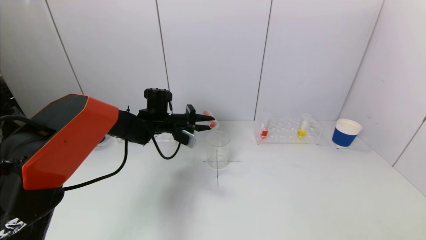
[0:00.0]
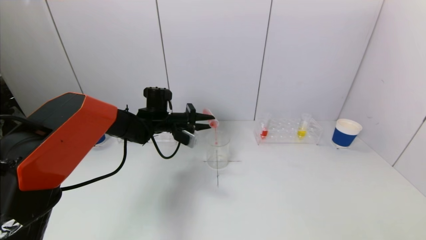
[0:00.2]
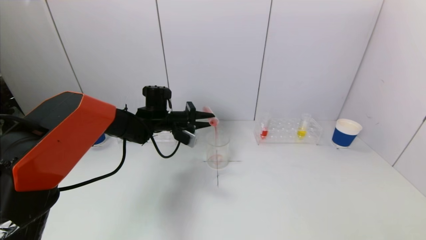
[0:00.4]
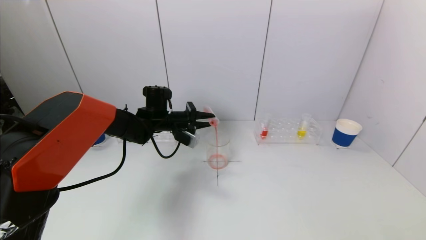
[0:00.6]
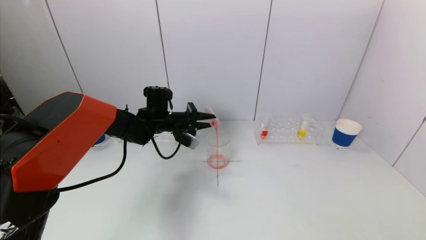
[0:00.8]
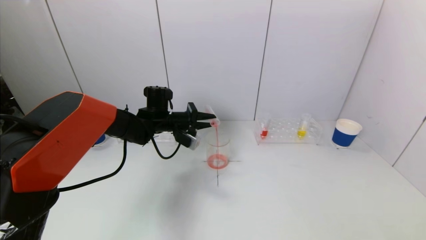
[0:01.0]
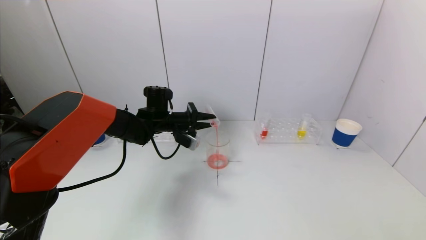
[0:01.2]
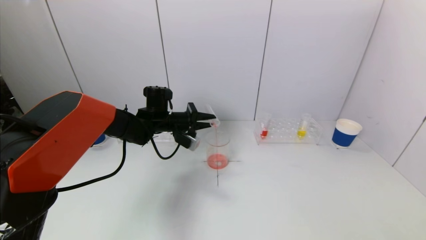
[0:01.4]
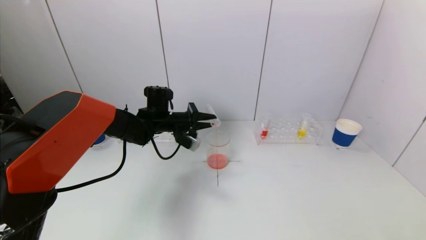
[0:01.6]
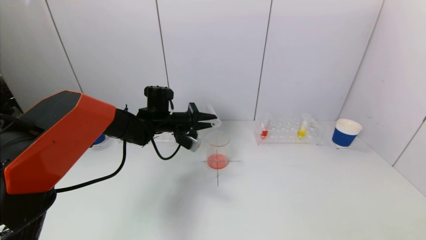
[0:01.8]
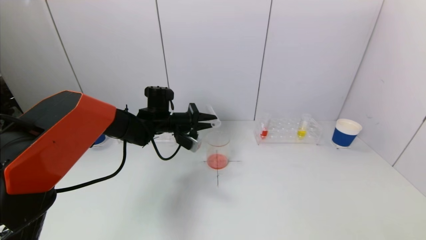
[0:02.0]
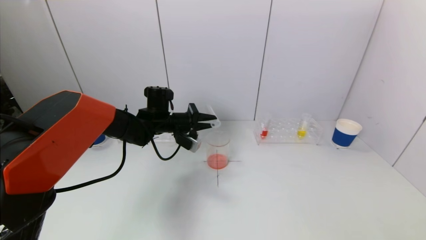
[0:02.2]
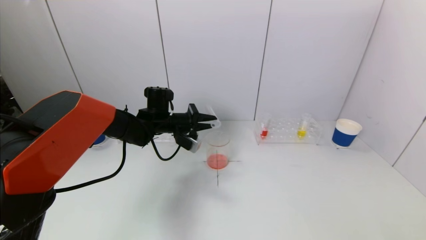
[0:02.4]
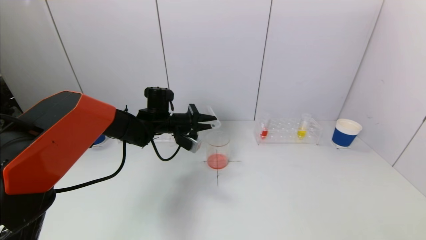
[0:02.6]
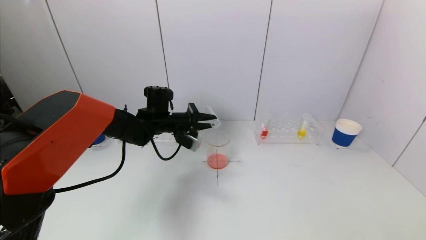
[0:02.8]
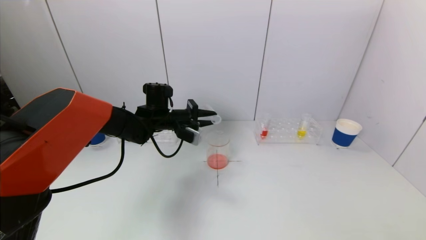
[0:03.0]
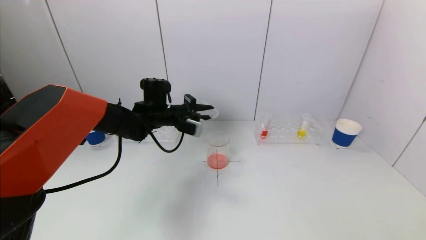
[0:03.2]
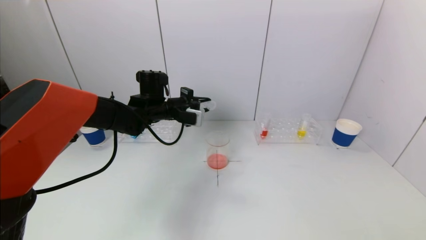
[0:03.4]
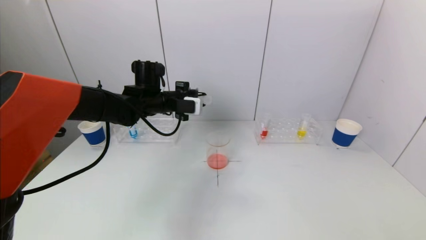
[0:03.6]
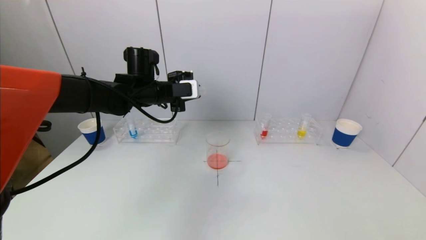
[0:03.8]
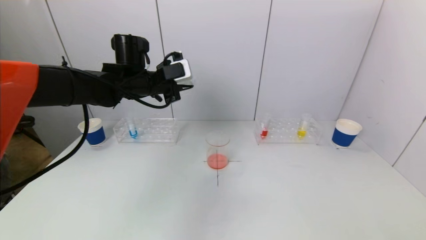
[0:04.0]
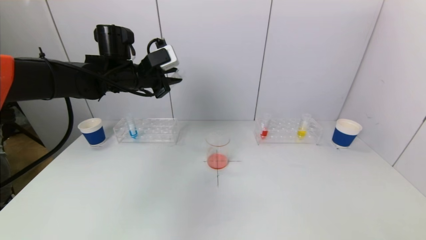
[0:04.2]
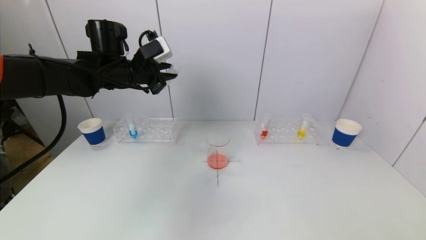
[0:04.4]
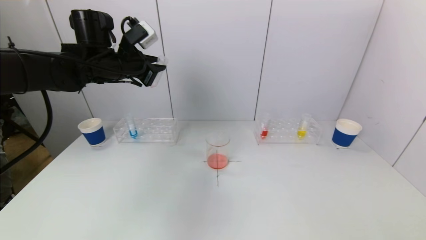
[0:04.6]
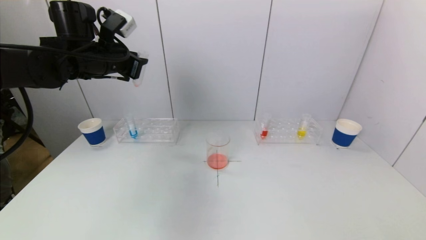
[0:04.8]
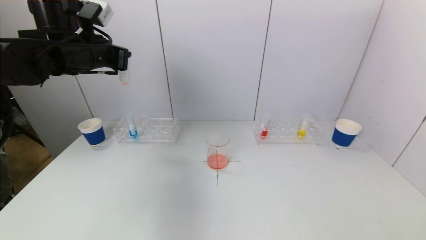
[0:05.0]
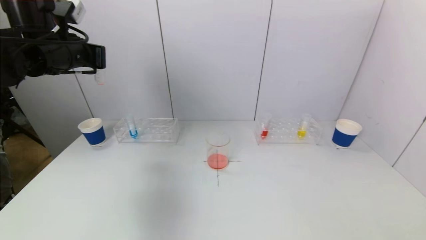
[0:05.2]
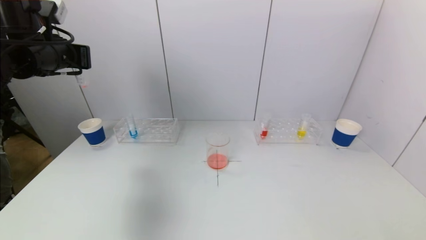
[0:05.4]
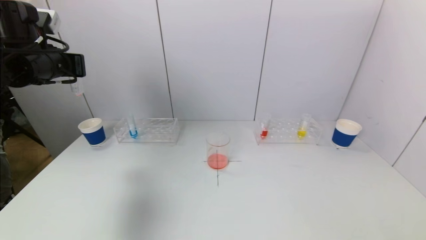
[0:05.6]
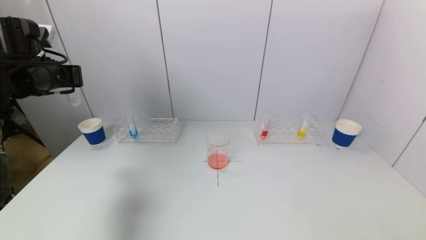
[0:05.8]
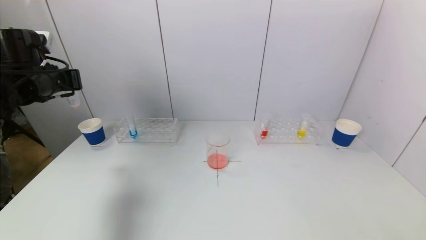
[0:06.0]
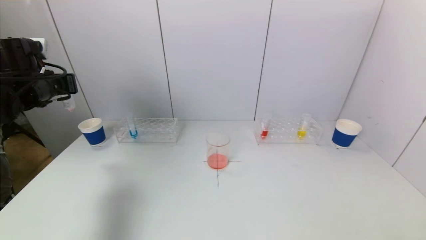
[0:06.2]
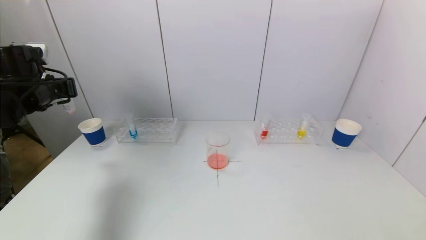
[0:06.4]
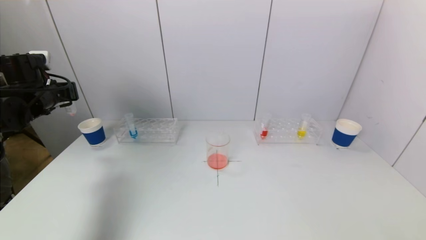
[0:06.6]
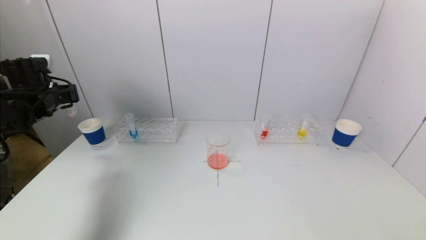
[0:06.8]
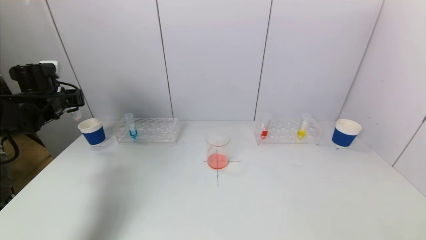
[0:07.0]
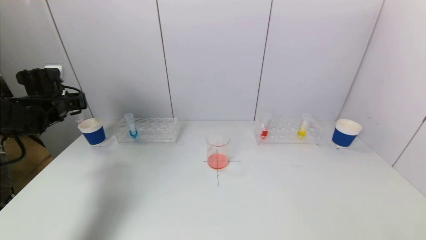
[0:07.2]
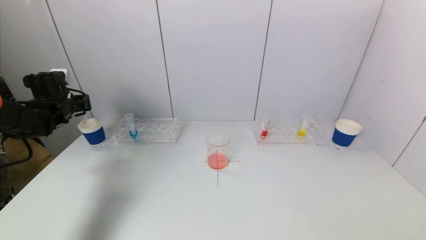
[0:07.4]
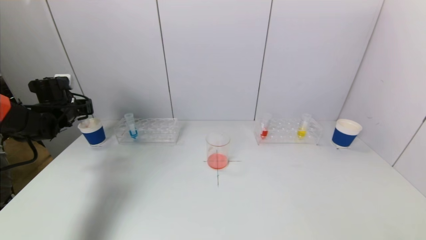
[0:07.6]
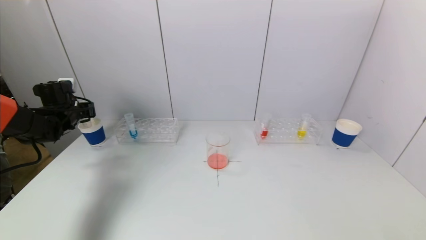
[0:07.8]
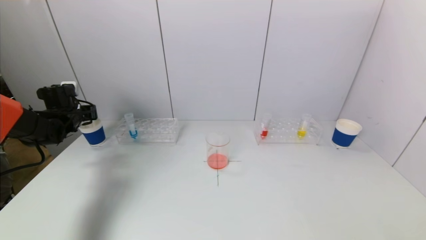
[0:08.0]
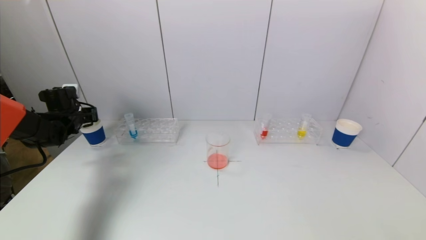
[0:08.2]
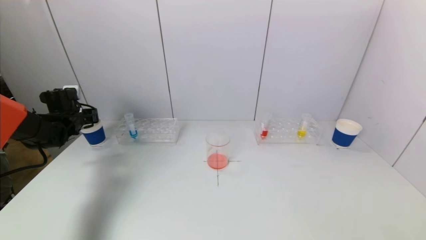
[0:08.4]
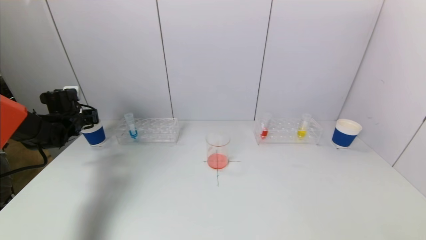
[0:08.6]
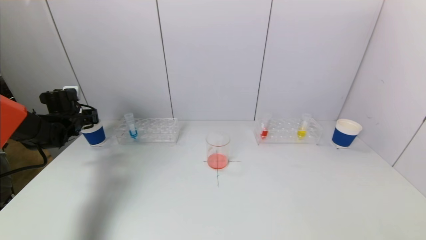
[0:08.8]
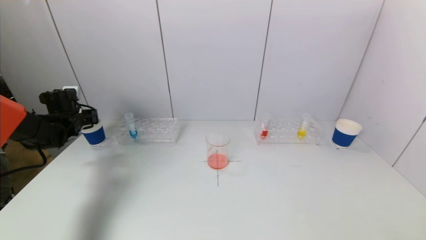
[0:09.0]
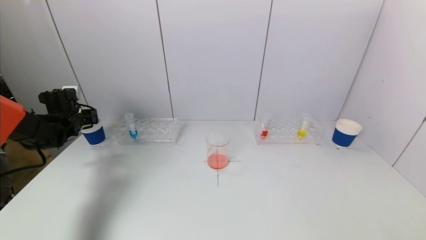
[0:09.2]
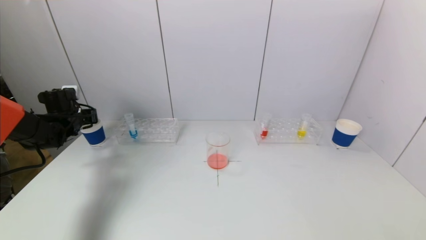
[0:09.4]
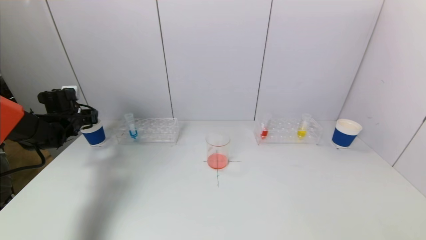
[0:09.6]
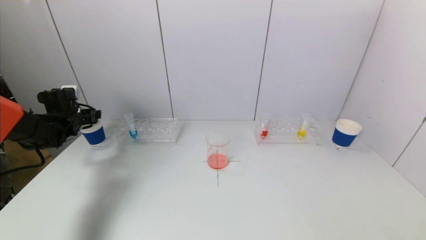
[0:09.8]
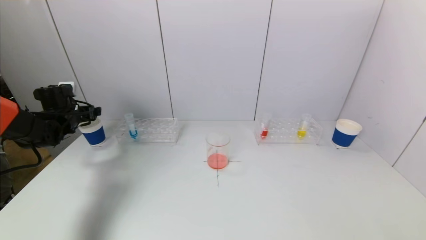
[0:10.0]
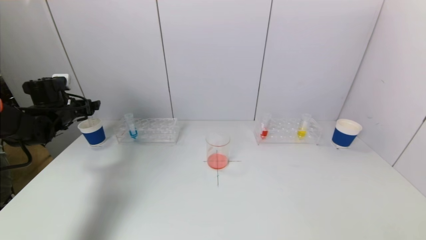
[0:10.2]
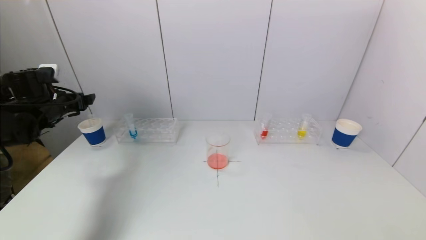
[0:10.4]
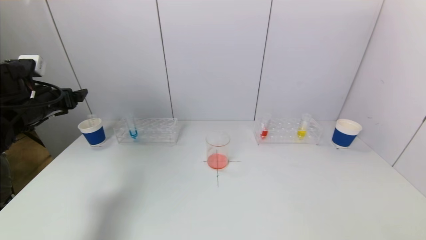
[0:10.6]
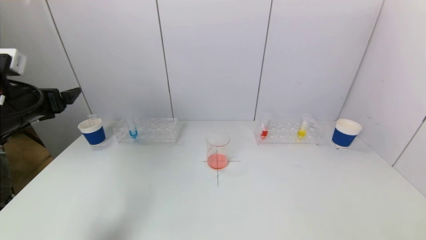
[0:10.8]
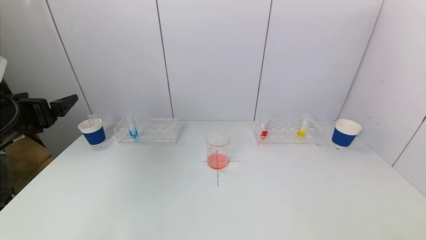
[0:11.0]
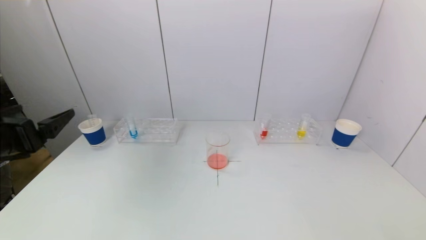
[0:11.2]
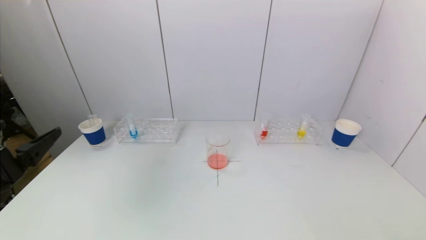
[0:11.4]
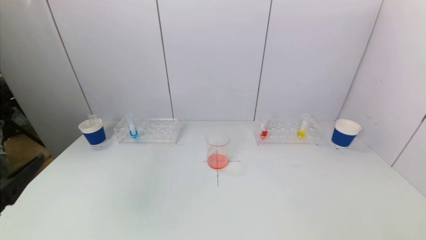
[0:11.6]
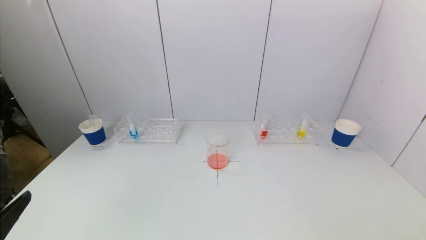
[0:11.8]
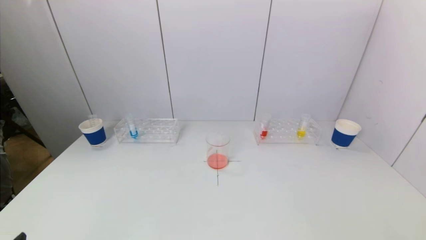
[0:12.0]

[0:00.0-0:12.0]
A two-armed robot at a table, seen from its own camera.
Task of the whole recording: pick up a test tube with pigment on left test tube rack and a test tube with pigment on right test tube rack by grippers and pour them into the beaker.
Step, 0:00.0 to 0:02.8: Pour the red reagent into the graduated cylinder with the left gripper.
Step, 0:03.0 to 0:09.8: Place the test tube into the paper cup with the left gripper.
0:00.0 to 0:03.0: The grippers stay close to where they were, moving slightly.
0:03.0 to 0:04.4: The left gripper moves upward and to the left, some 15 cm.
0:04.4 to 0:06.0: The left gripper goes some 15 cm to the left.
0:06.0 to 0:07.6: The left gripper shifts roughly 15 cm downward, forward and to the left.
0:07.6 to 0:09.0: The grippers stay close to where they were, moving slightly.
0:09.0 to 0:10.4: The left gripper travels upward and backward by about 10 cm, and opens its fingers.
0:10.4 to 0:12.0: The left gripper heads backward, covering approximately 40 cm.

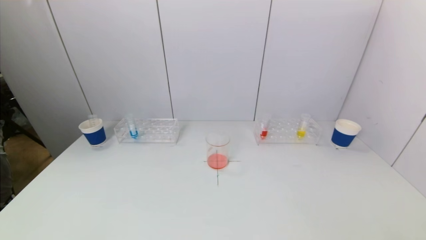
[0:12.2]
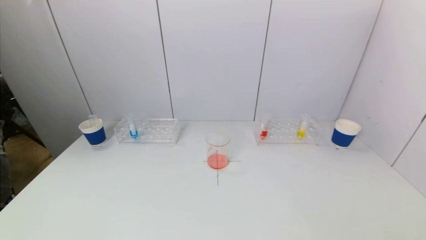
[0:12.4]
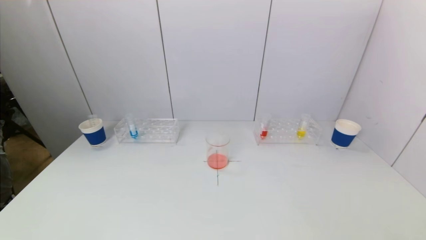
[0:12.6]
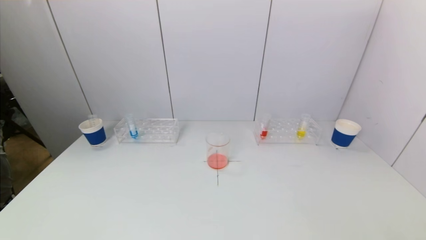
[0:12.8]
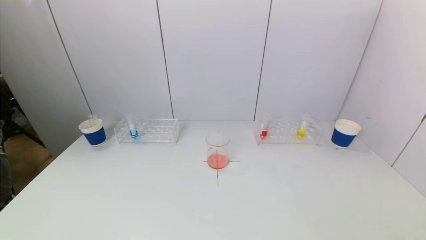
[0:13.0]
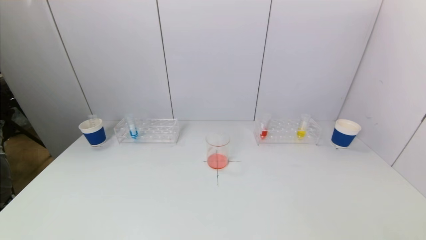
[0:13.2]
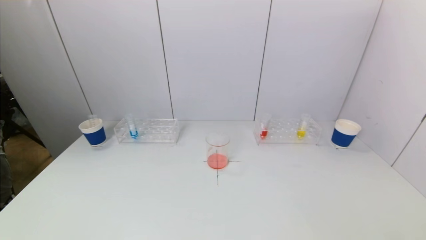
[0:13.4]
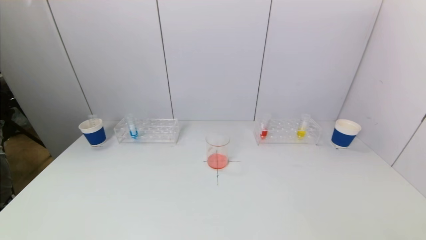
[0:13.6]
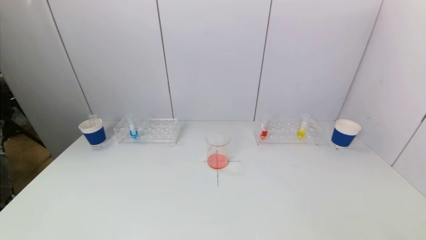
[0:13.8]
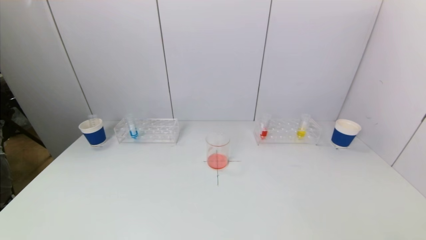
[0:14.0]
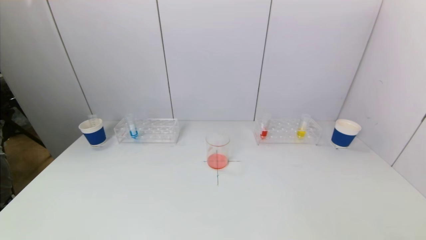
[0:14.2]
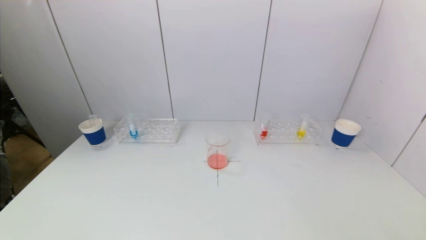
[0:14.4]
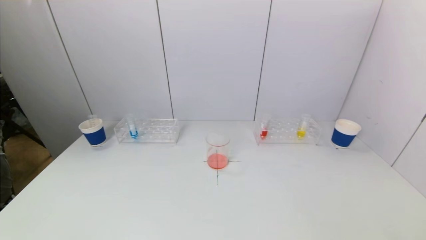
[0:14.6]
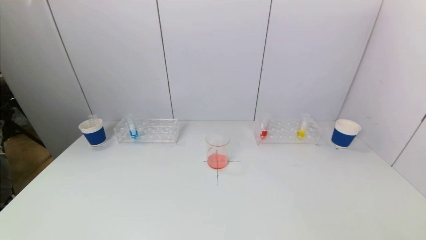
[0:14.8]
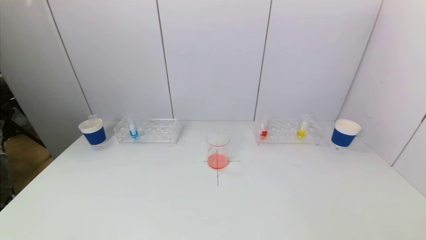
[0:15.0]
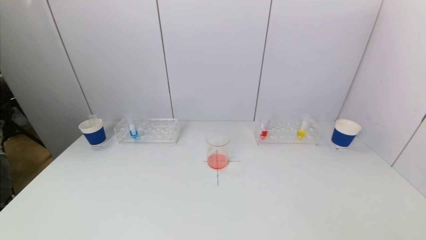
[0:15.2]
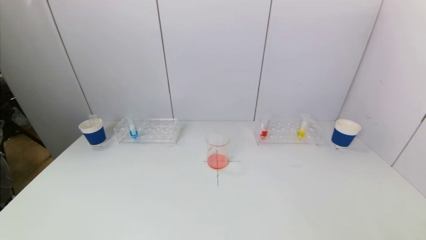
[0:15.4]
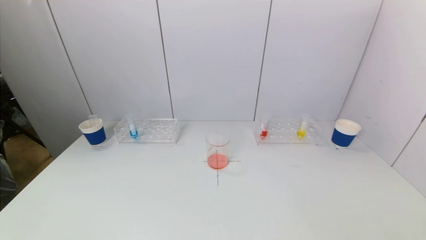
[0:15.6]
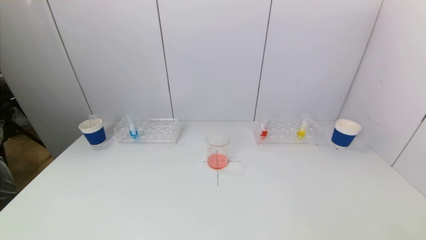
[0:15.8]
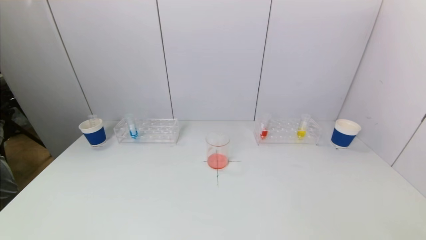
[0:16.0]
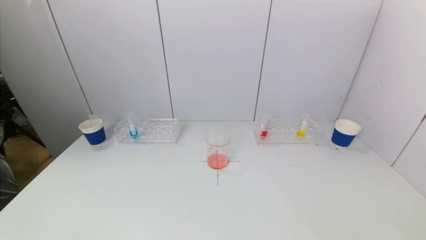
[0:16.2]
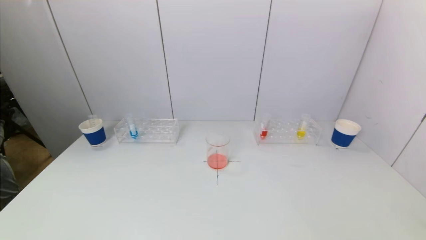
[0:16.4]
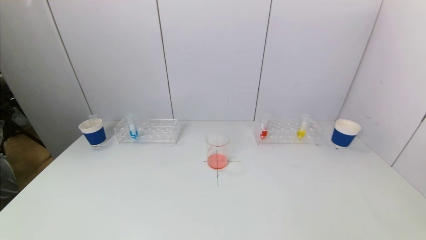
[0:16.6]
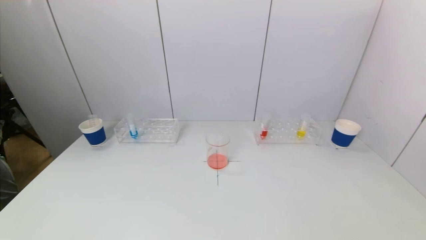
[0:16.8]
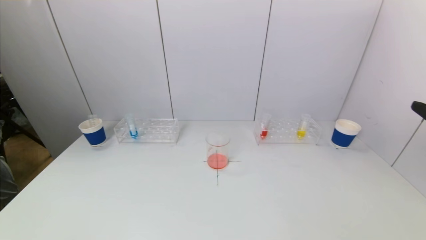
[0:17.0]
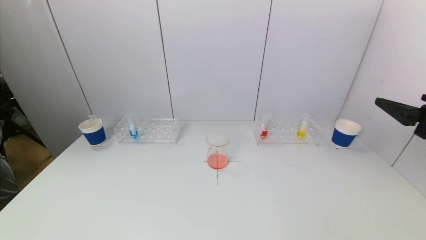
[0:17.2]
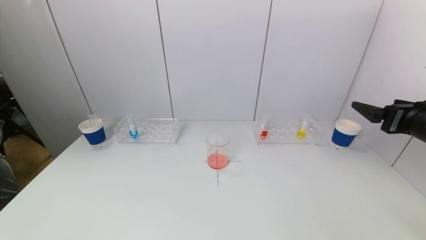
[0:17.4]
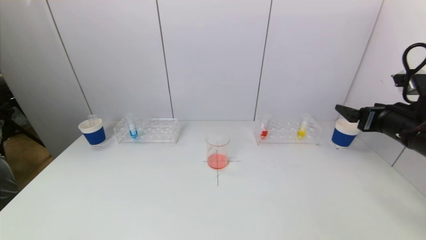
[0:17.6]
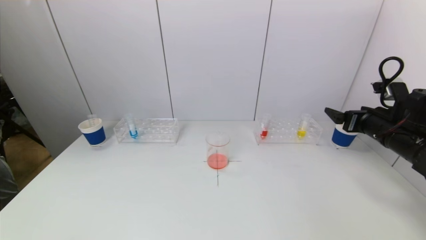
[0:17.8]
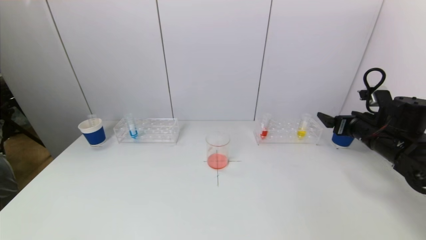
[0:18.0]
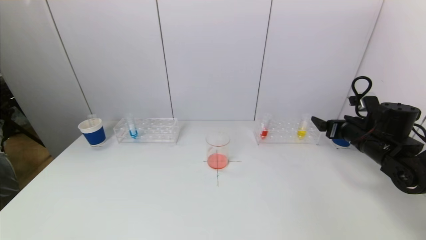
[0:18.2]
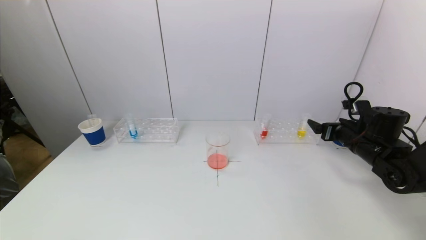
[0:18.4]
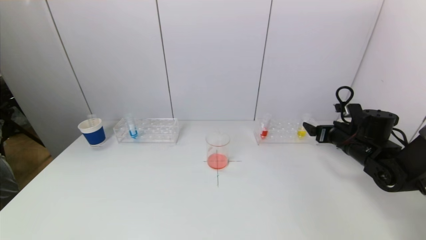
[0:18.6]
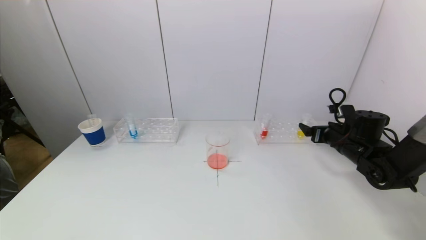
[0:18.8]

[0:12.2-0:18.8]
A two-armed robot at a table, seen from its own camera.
Task of the whole recording: pick up a test tube with pigment on left test tube rack and a test tube with pigment on right test tube rack by grippers and pour them into the beaker.
0:13.8 to 0:15.4: Neither gripper changes place.
0:15.4 to 0:17.2: The right gripper travels forward and upward by some 25 cm.
0:17.2 to 0:18.8: The right gripper moves forward and downward, some 25 cm.
